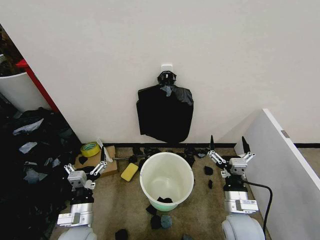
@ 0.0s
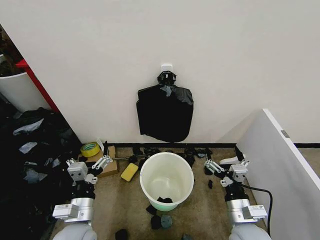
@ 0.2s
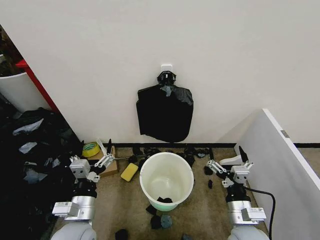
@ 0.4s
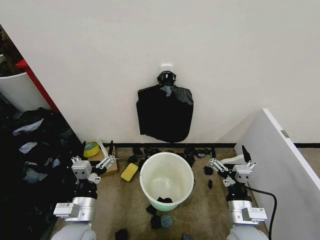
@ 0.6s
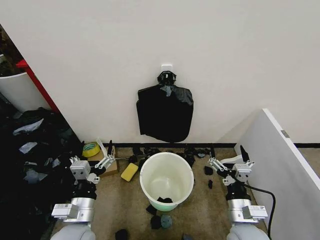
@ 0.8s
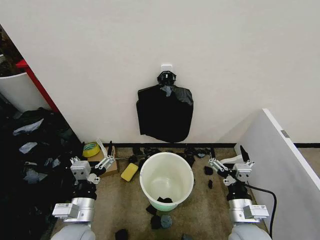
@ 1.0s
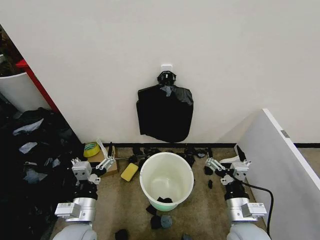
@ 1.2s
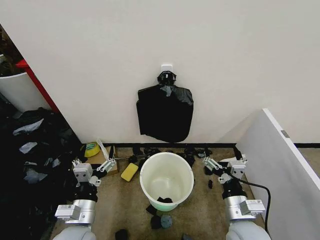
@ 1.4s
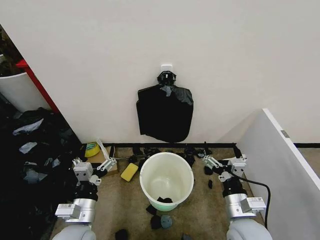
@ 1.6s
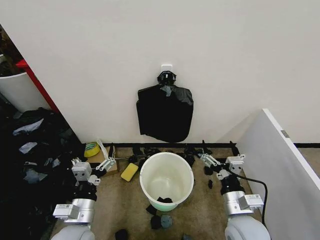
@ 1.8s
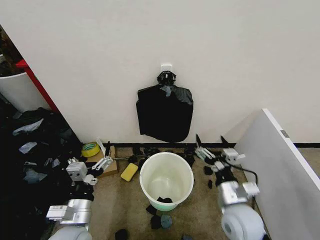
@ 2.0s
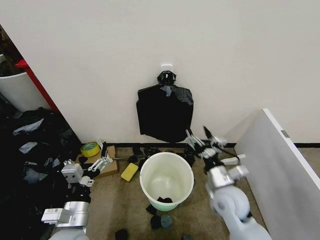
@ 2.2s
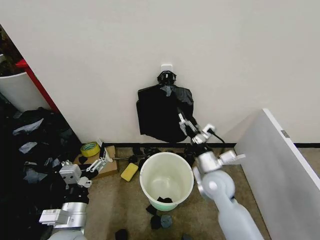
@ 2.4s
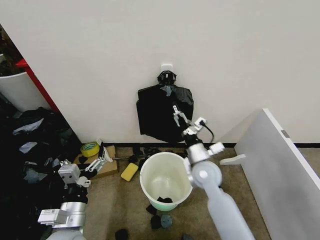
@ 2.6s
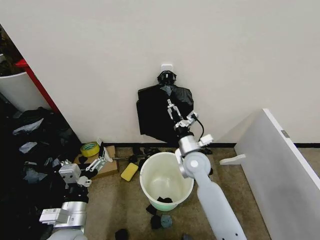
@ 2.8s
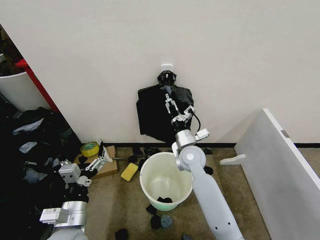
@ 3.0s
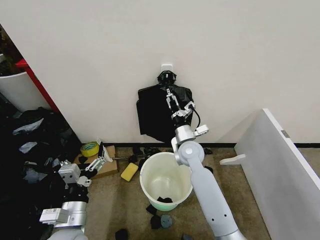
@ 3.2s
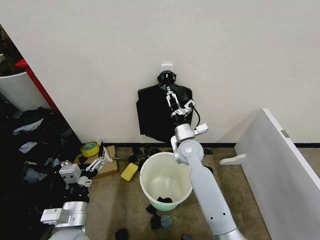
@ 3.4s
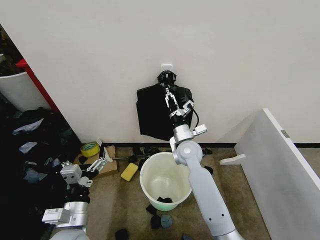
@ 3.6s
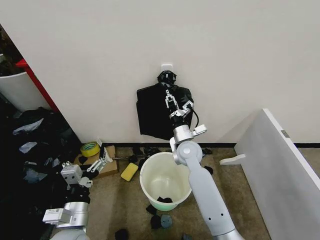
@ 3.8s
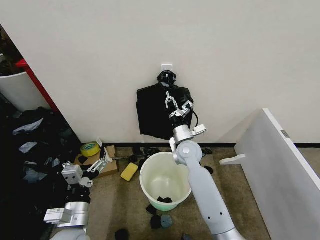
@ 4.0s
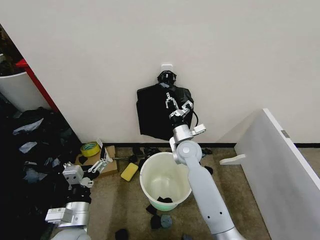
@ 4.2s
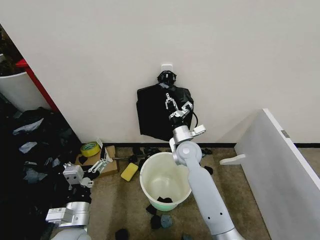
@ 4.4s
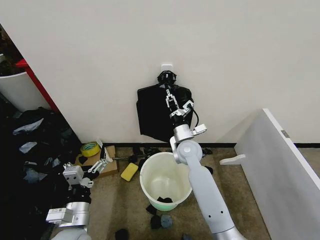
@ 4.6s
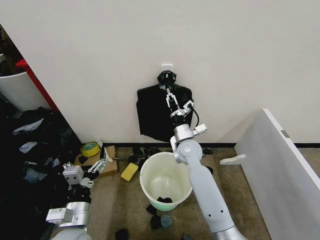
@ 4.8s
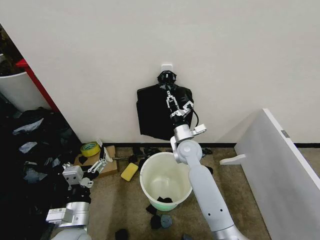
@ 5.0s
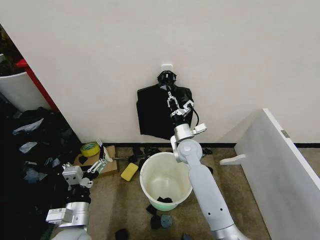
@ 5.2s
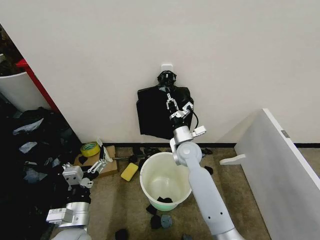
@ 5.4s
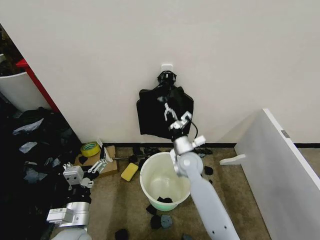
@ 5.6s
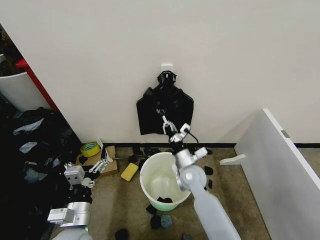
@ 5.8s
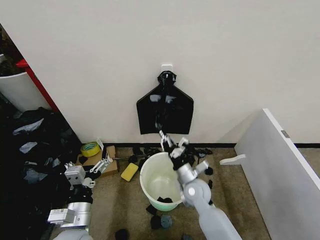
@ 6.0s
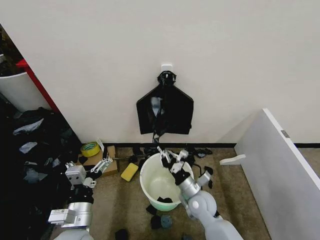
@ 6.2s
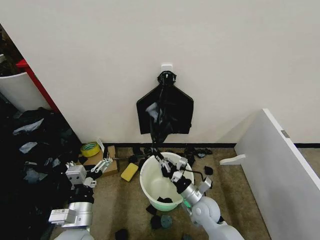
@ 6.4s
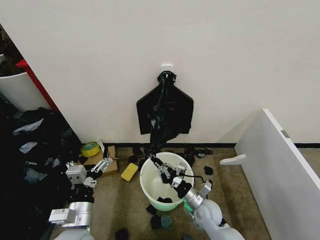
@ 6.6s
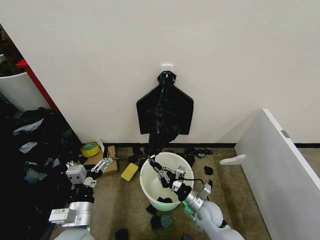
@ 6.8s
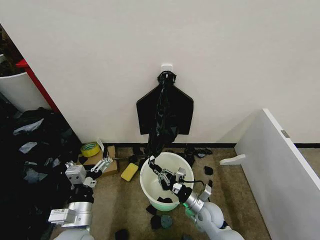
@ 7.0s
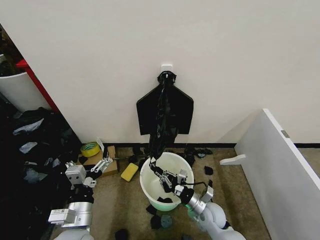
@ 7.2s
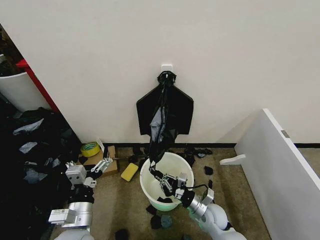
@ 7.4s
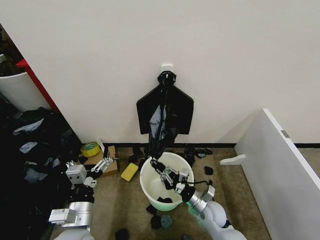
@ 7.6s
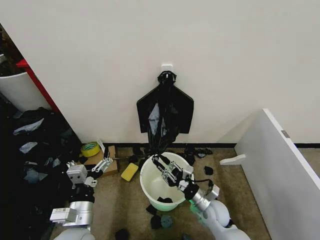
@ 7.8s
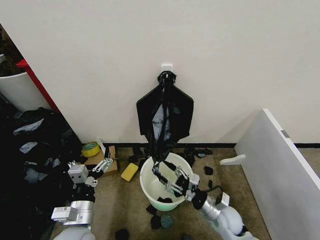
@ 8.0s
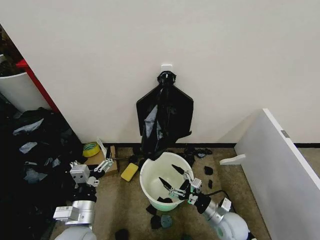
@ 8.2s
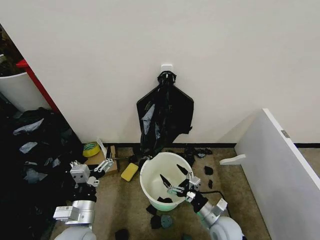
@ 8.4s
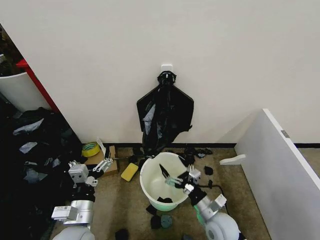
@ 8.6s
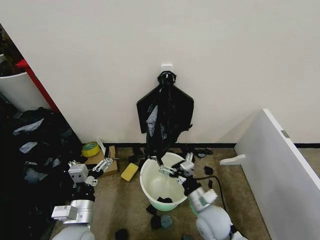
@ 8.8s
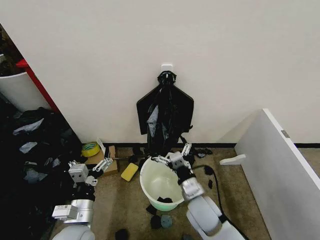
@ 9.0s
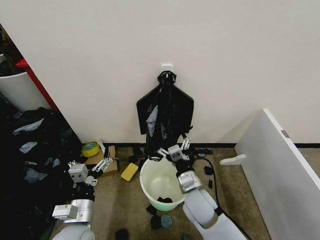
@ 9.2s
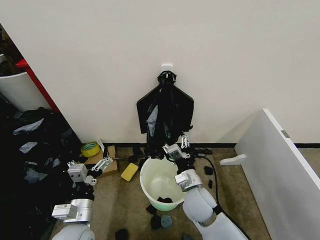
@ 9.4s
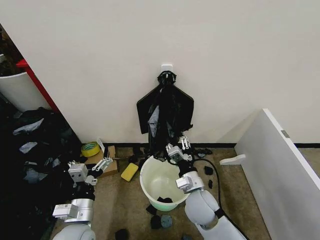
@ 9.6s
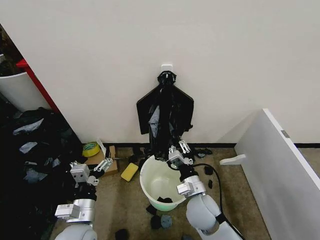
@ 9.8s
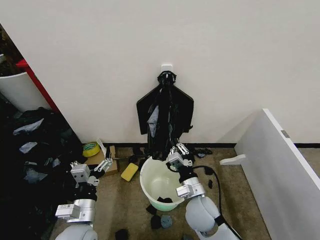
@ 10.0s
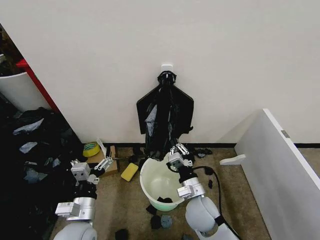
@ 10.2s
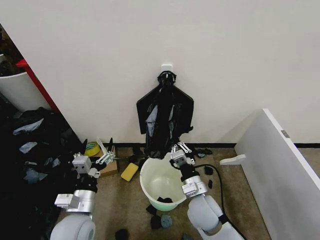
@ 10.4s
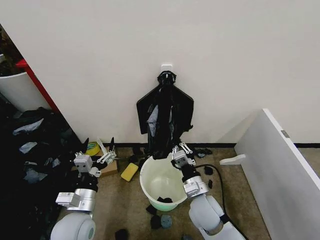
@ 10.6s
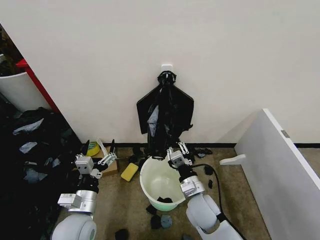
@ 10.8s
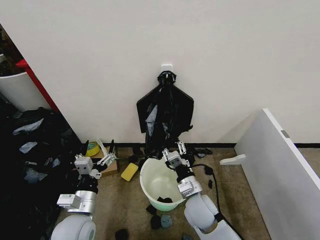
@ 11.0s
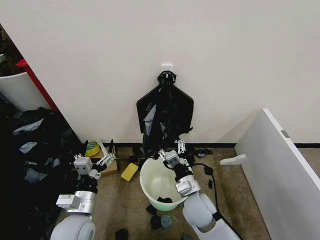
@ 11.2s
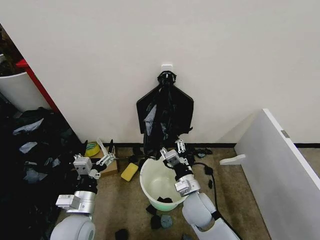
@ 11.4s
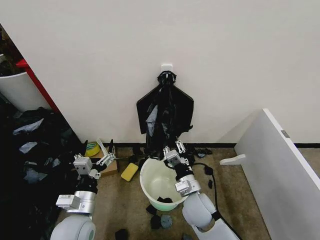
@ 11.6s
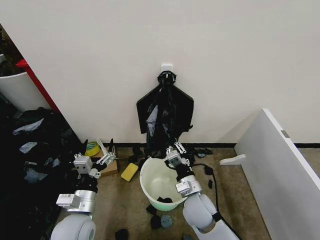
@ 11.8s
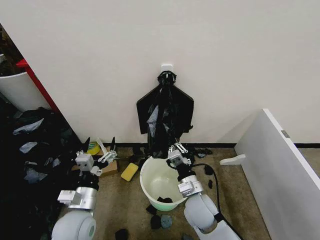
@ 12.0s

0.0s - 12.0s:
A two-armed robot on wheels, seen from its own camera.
Task of the whole recording: Place the garbage bag over the trash bin.
1.6s - 3.0s: The right gripper heads forward and to the left, covering about 25 cm.
3.0s - 4.4s: The right gripper closes up.
4.4s - 6.0s: The right gripper shifts approximately 15 cm backward and downward.
6.0s - 7.6s: The right gripper goes about 10 cm downward, to the right and backward.
7.6s - 9.0s: The right gripper heads upward and to the left, covering approximately 10 cm, and opens.
9.0s - 10.4s: The right gripper closes up.
10.4s - 12.0s: The right gripper opens, then closes once more.

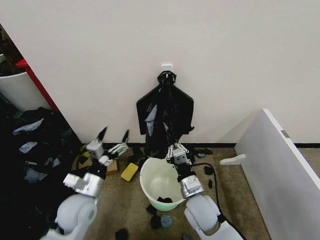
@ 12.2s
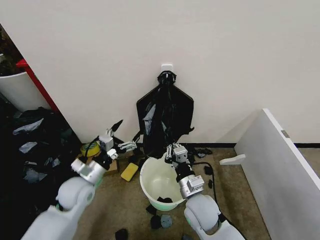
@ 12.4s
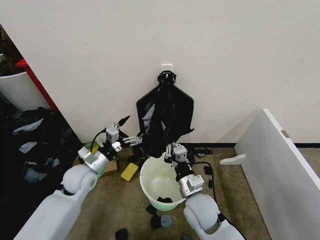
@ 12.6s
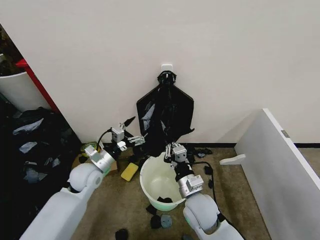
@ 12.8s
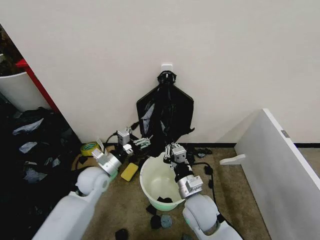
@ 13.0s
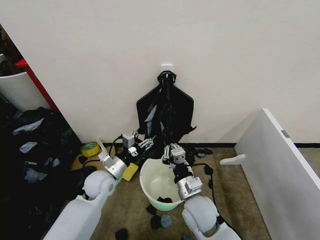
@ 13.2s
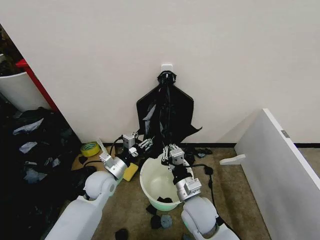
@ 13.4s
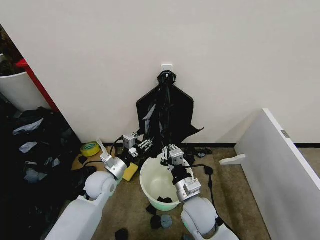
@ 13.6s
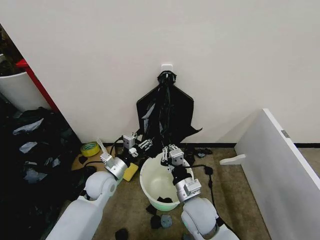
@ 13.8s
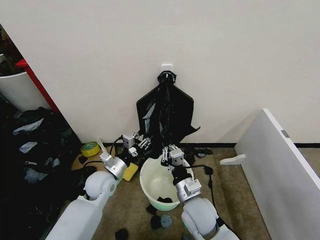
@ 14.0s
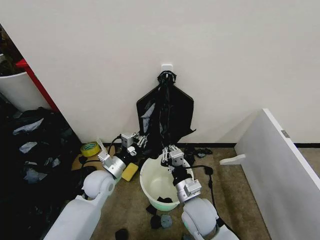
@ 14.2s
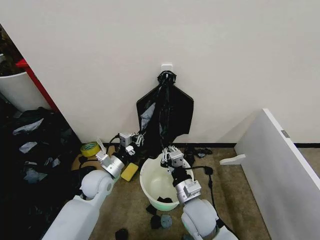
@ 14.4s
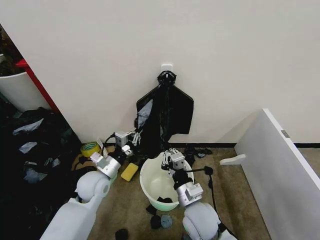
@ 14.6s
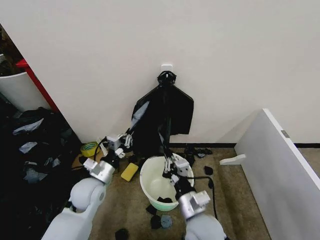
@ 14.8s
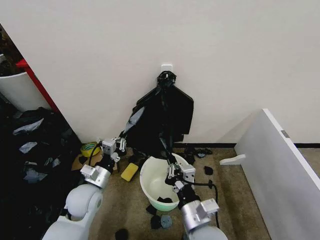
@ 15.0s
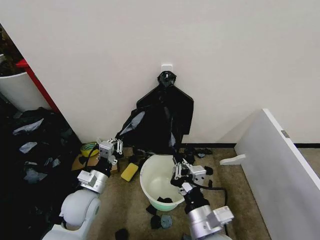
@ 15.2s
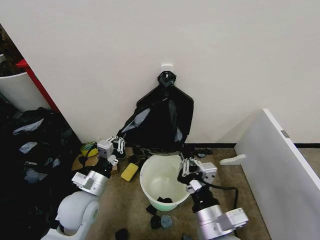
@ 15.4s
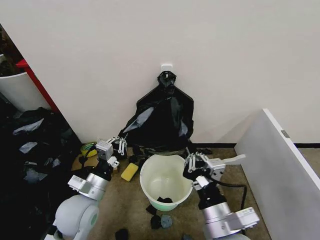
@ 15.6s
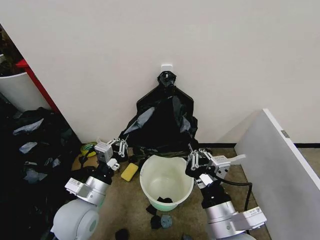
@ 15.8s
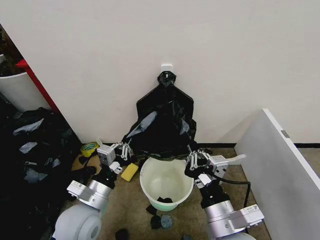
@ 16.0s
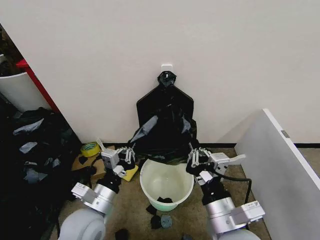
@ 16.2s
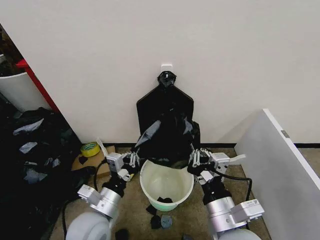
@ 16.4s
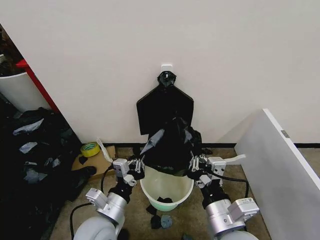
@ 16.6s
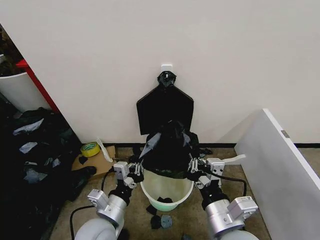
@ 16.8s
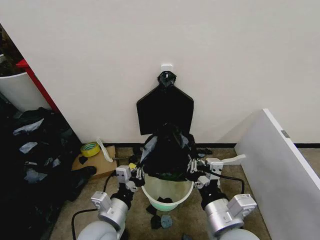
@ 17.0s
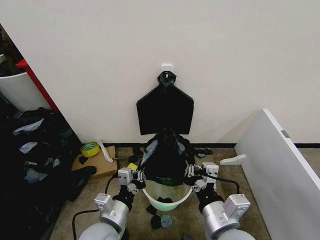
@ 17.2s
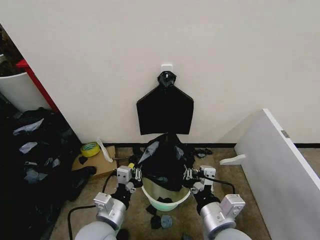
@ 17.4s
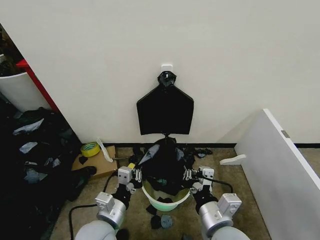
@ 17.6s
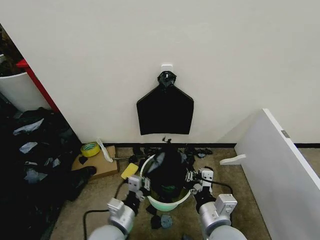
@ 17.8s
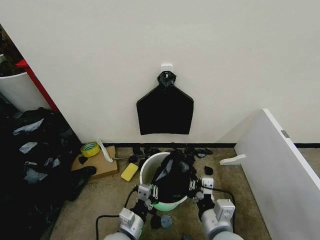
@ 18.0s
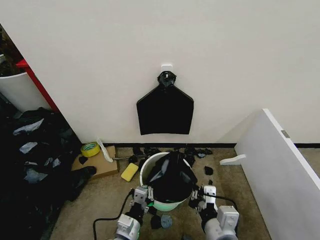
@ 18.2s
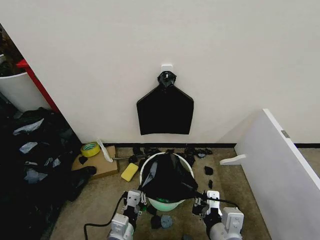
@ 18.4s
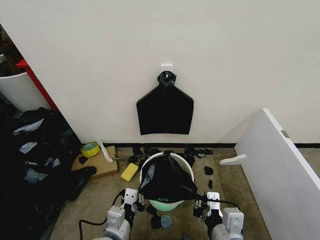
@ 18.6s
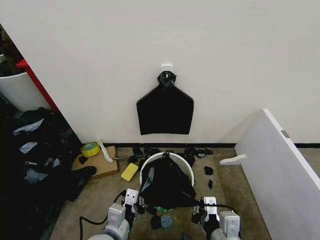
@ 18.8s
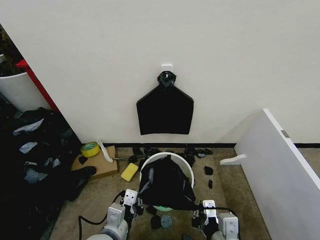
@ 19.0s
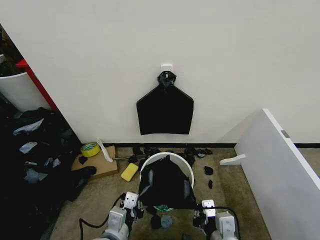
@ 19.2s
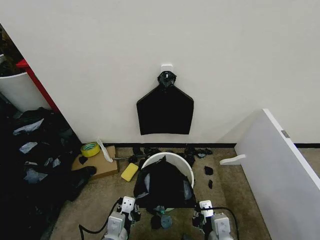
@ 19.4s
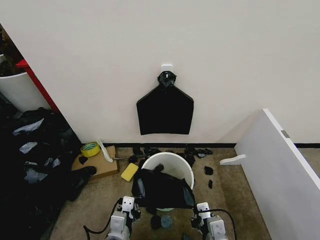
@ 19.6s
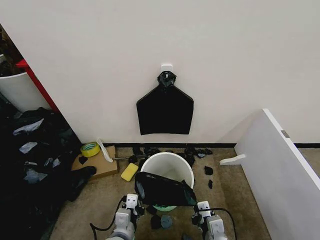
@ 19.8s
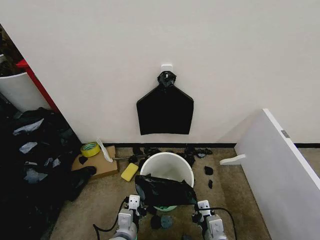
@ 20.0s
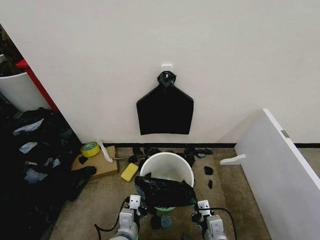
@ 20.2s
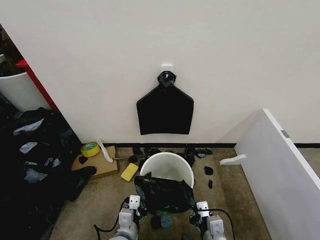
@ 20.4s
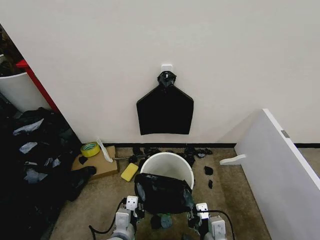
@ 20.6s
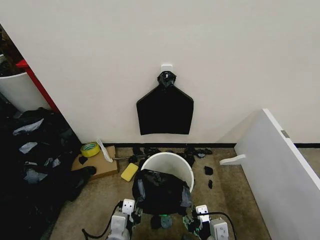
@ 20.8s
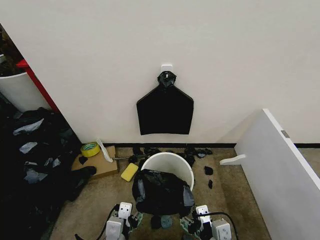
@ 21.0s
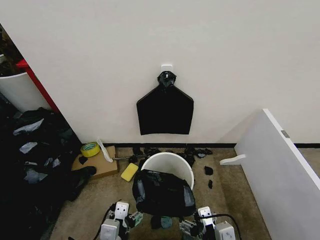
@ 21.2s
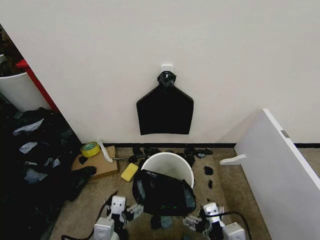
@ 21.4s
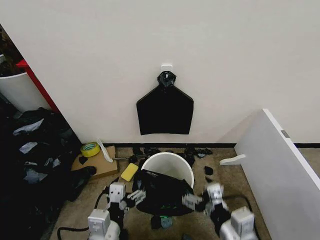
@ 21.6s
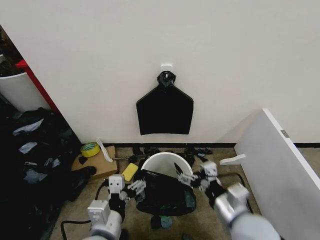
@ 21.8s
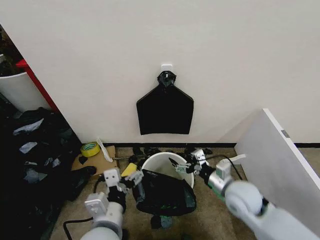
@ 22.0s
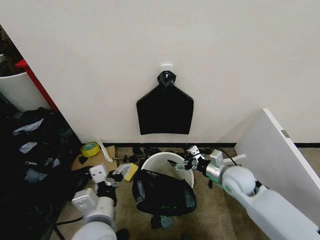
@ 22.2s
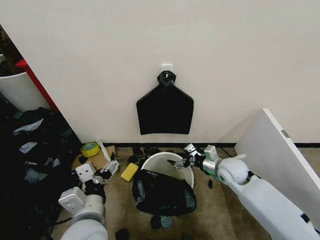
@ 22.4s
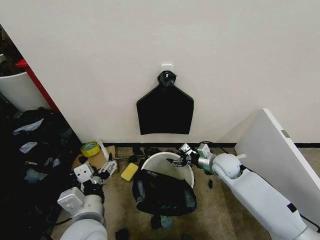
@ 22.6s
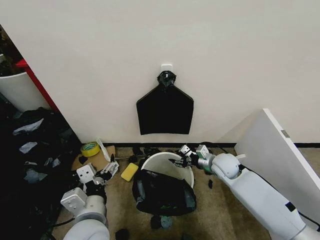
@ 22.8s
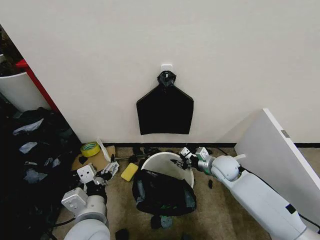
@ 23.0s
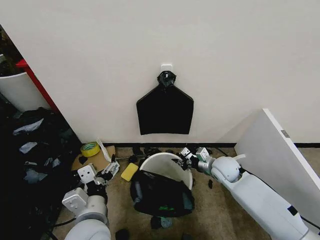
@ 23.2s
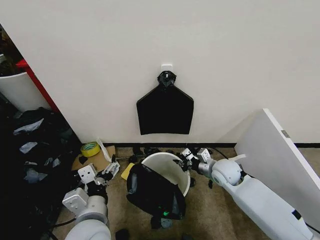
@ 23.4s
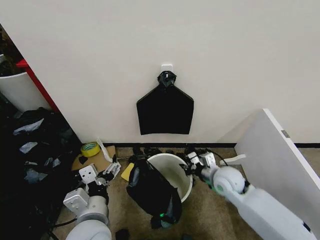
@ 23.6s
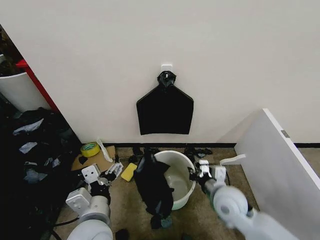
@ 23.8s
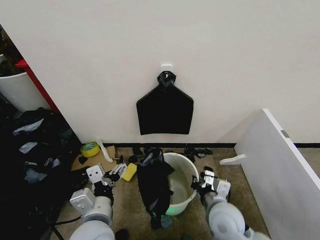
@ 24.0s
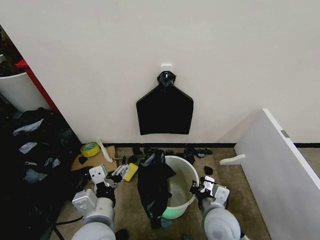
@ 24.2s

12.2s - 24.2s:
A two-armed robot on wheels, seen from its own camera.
Task of the whole recording: Place the garbage bag over the trash bin.
12.2s - 13.8s: The left gripper moves forward, approximately 10 cm.
13.8s - 15.2s: The left gripper travels backward by some 5 cm, and closes. The right gripper travels backward and upward by some 10 cm.
15.2s - 16.6s: The left gripper moves backward and to the right, roughly 10 cm, while the right gripper shifts about 5 cm upward.
16.6s - 18.2s: The right gripper travels downward by approximately 5 cm; the left gripper is displaced downward by some 10 cm.
18.2s - 19.8s: The right gripper travels downward by about 10 cm. The left gripper travels upward and back again, about 10 cm each way.
19.8s - 21.2s: The two grippers go about 5 cm upward. The left gripper opens. The right gripper opens its fingers.
21.2s - 22.6s: The right gripper goes about 30 cm forward. The left gripper heads upward and forward, covering about 10 cm.
22.6s - 24.2s: The right gripper shifts some 20 cm backward and to the left, and closes its fingers.
